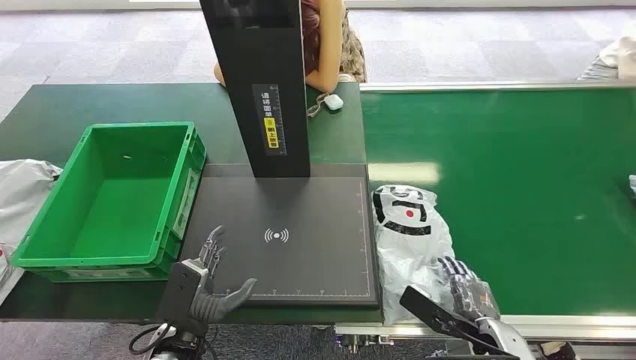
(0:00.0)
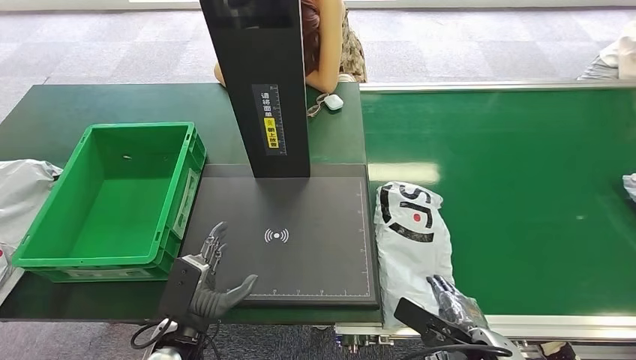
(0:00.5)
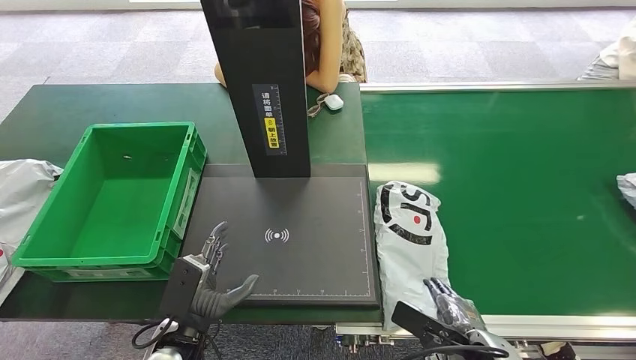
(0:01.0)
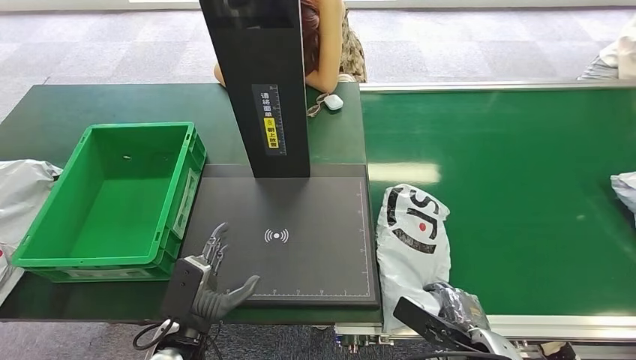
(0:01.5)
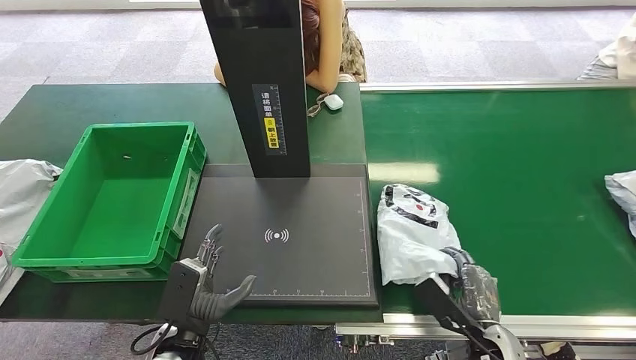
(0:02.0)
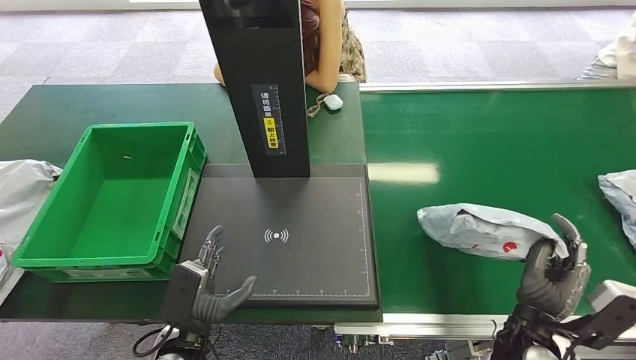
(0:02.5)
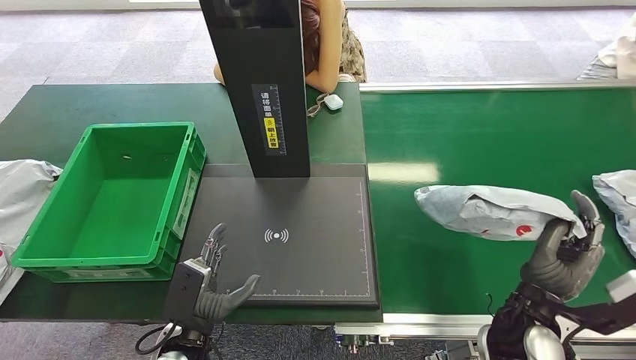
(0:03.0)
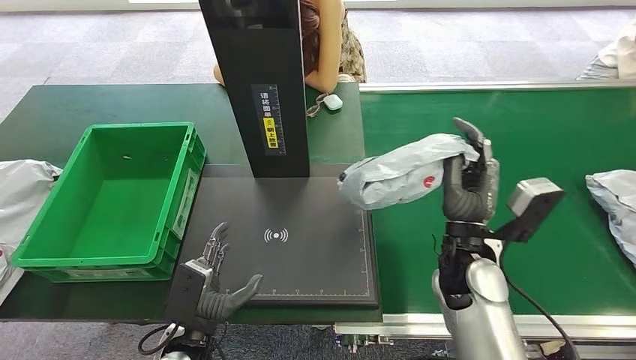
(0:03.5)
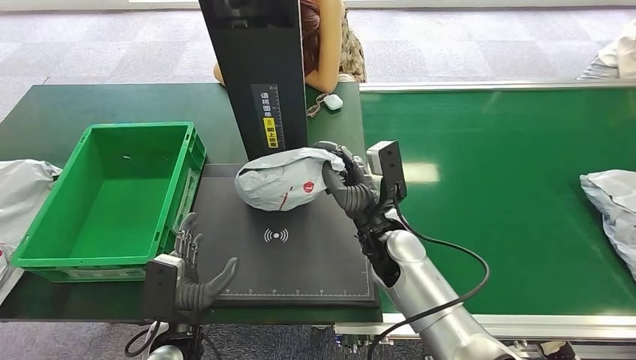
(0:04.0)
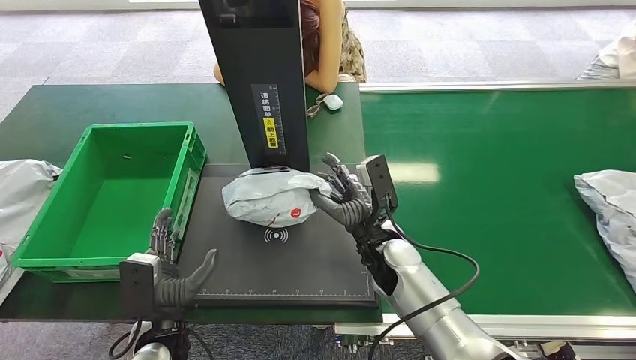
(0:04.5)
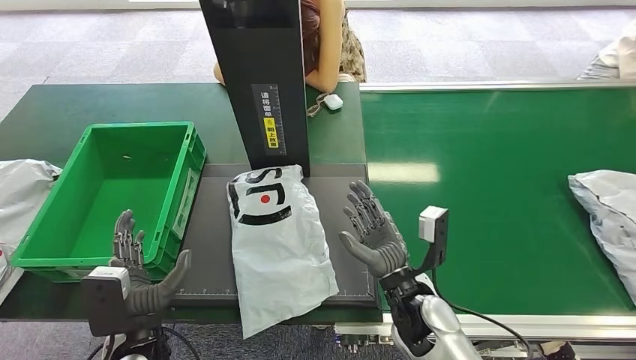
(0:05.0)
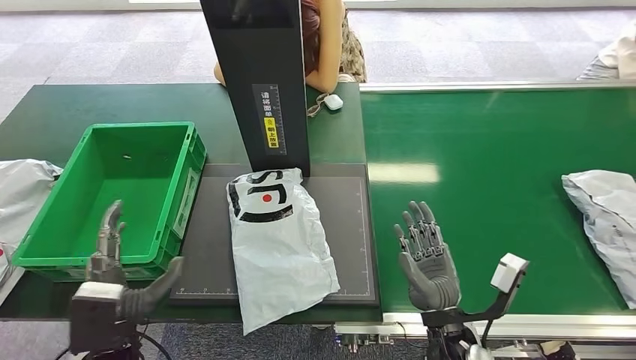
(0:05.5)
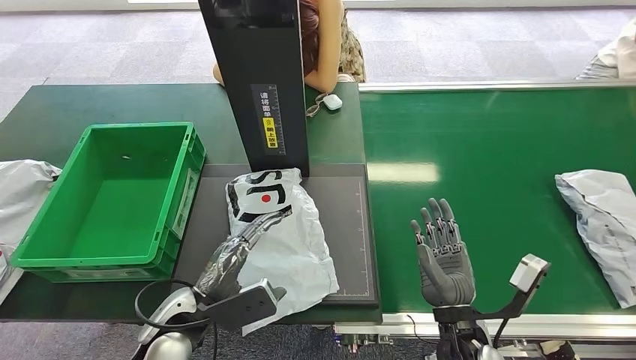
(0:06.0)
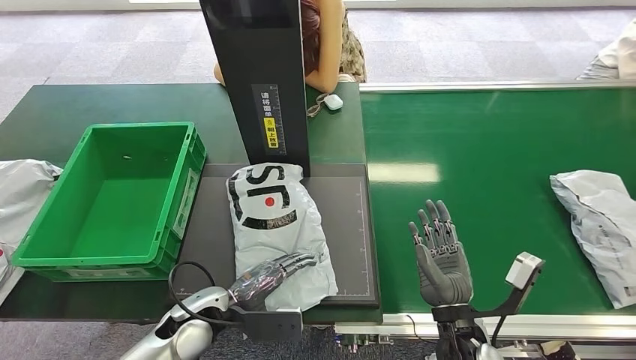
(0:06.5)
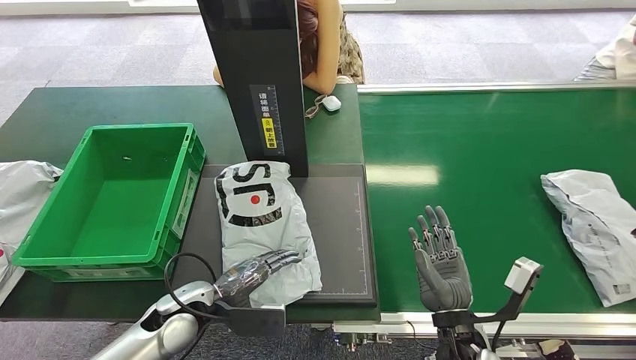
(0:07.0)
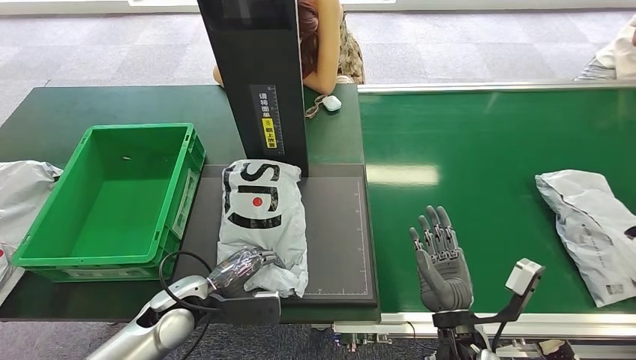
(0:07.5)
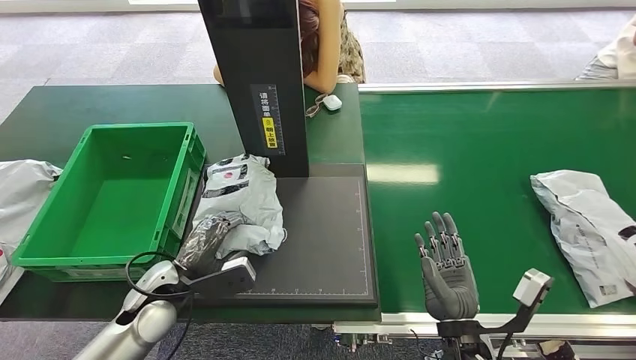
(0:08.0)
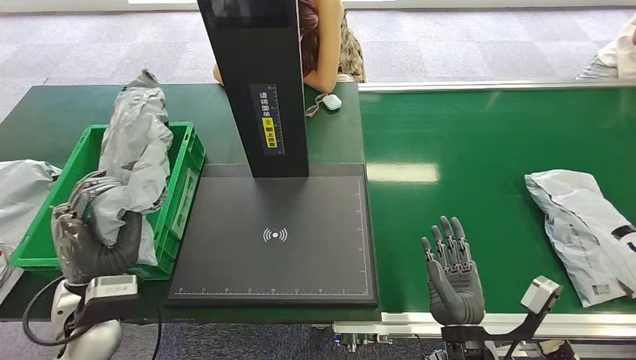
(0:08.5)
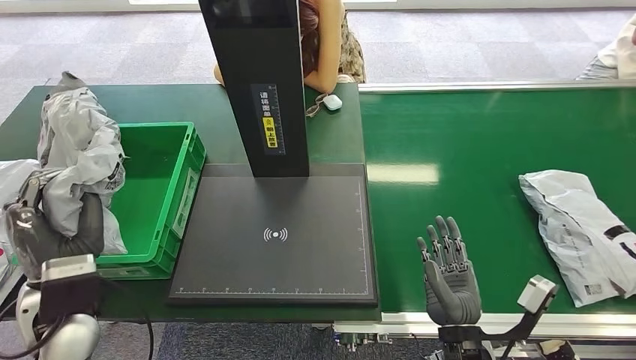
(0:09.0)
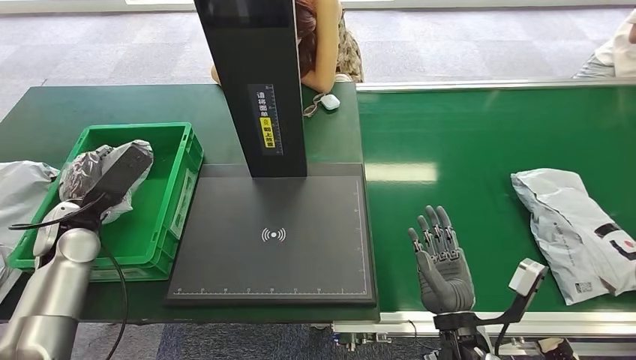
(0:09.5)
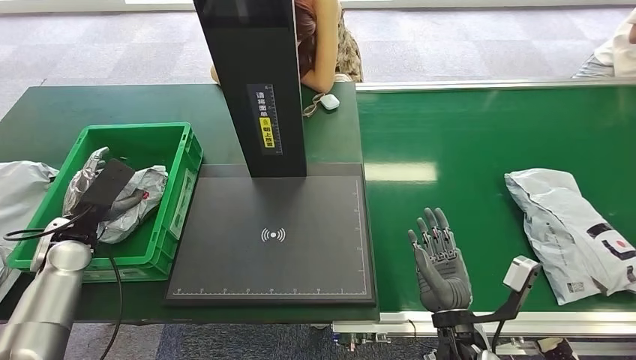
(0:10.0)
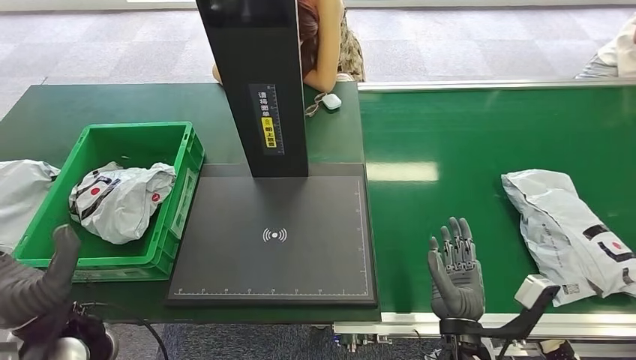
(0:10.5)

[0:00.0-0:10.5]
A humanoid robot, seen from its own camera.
Step, 0:00.0 to 0:03.0: Pick up the package from the conveyor belt.
Step, 0:03.5 to 0:05.5: Place the package onto the inbound machine.
Step, 0:06.0 to 0:08.5: Pick up the package from the inbound machine.
Step, 0:09.0 to 0:10.5: Place the package into the parcel locker.
0:02.0 to 0:04.0: The right hand heads to the left, forward and upward, covering approximately 25 cm.
0:08.5 to 0:10.5: The left hand reaches approximately 15 cm forward, then returns.
